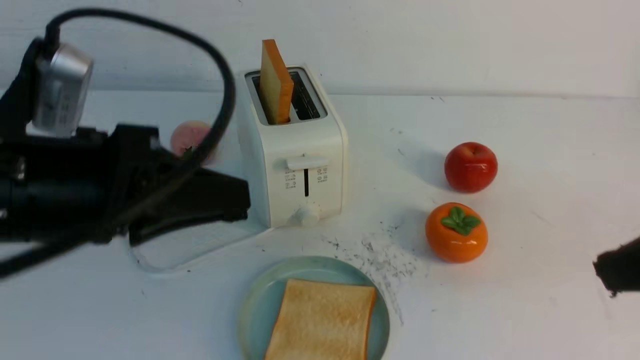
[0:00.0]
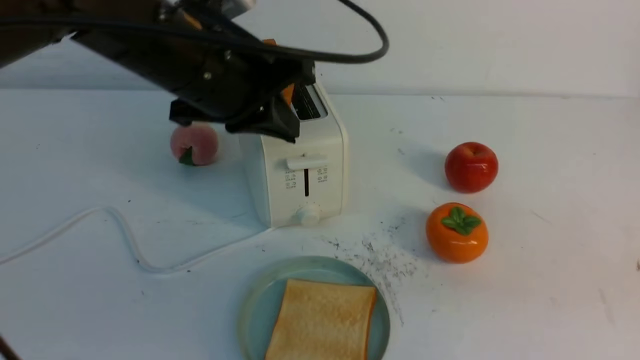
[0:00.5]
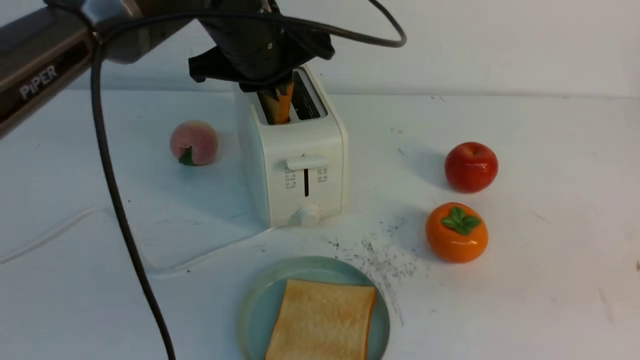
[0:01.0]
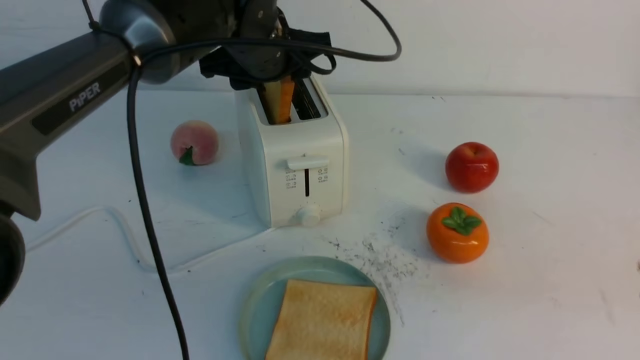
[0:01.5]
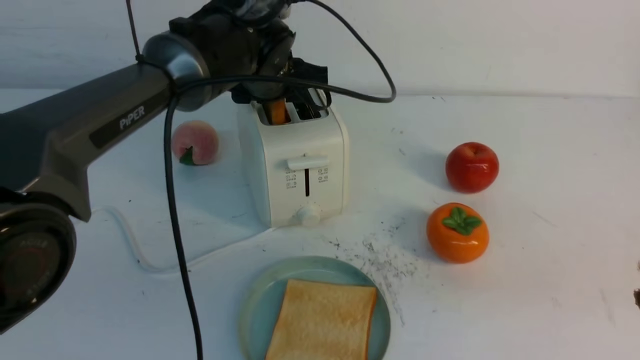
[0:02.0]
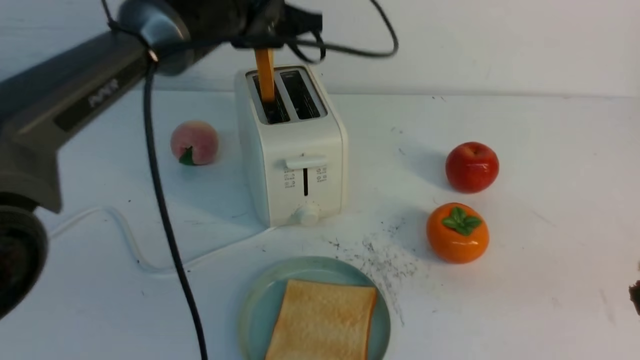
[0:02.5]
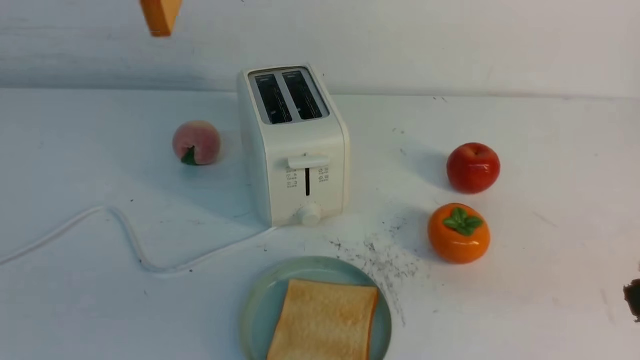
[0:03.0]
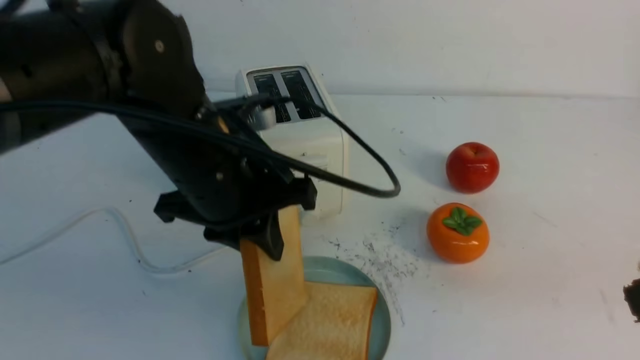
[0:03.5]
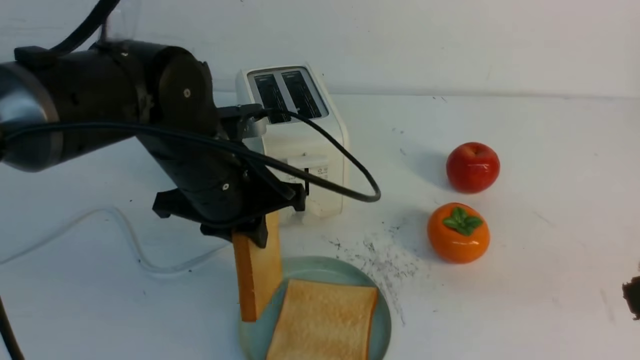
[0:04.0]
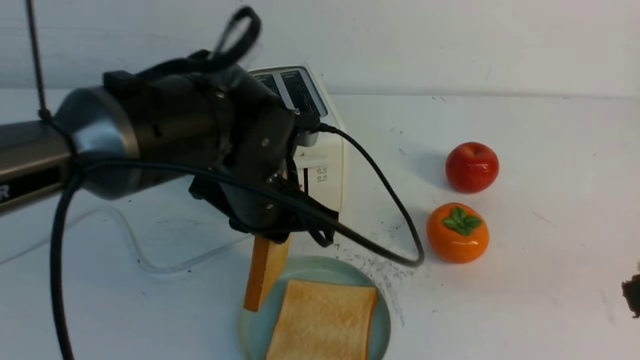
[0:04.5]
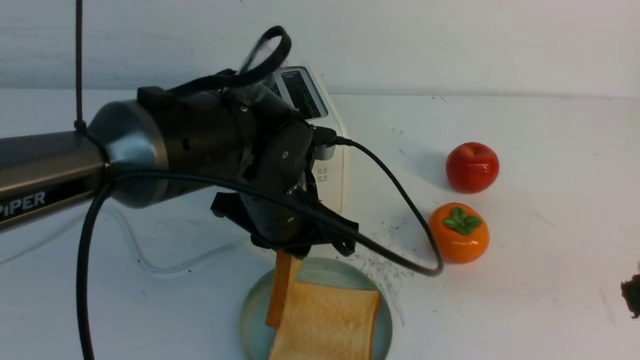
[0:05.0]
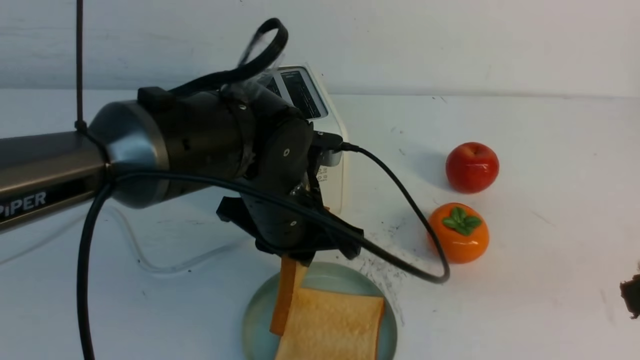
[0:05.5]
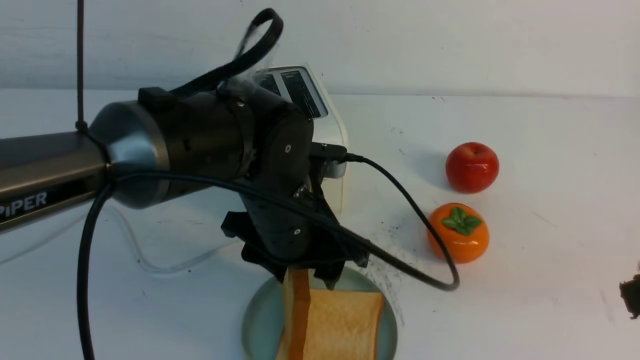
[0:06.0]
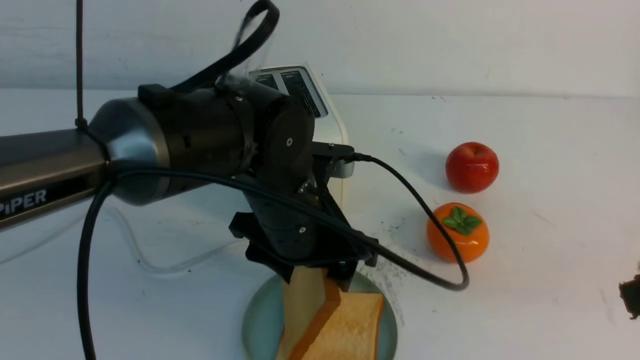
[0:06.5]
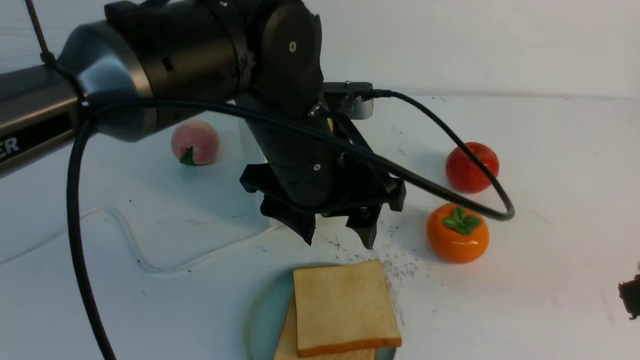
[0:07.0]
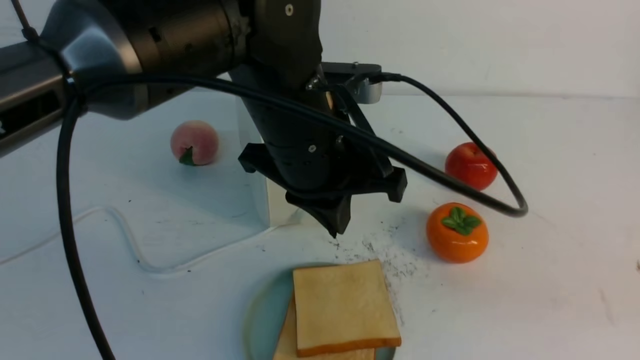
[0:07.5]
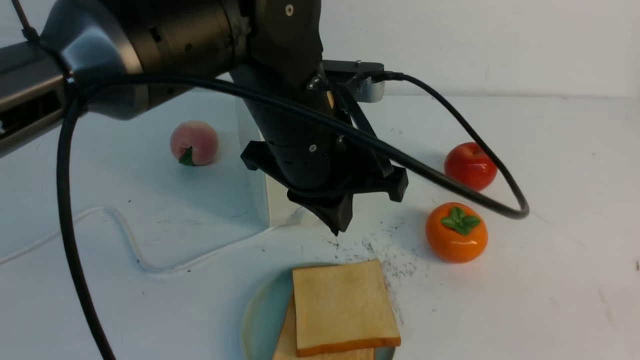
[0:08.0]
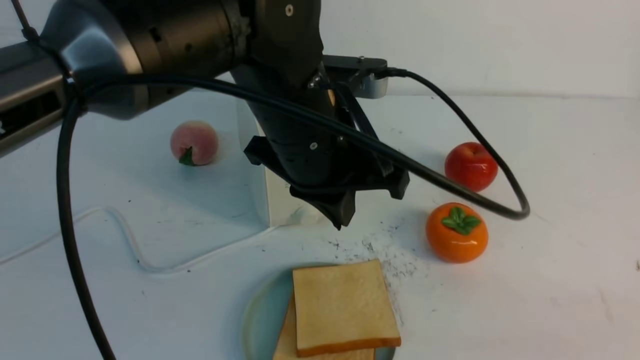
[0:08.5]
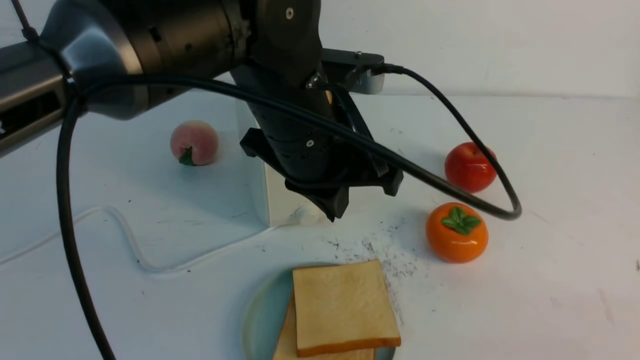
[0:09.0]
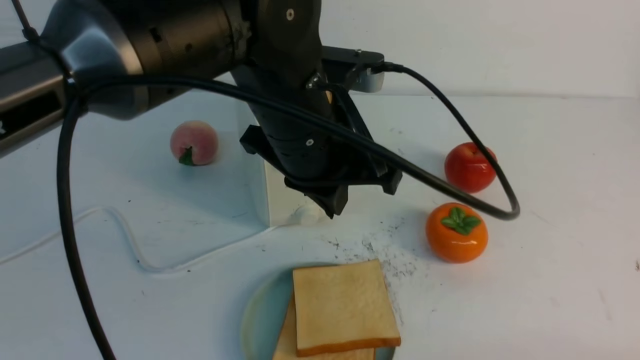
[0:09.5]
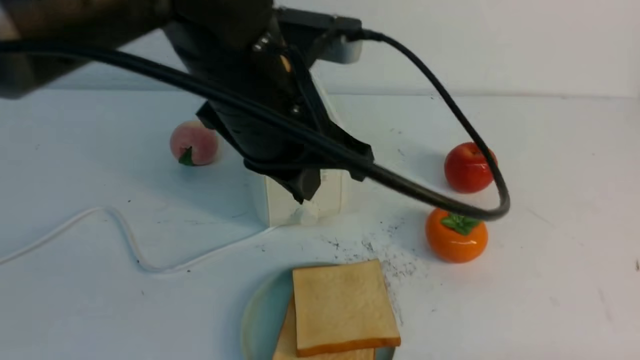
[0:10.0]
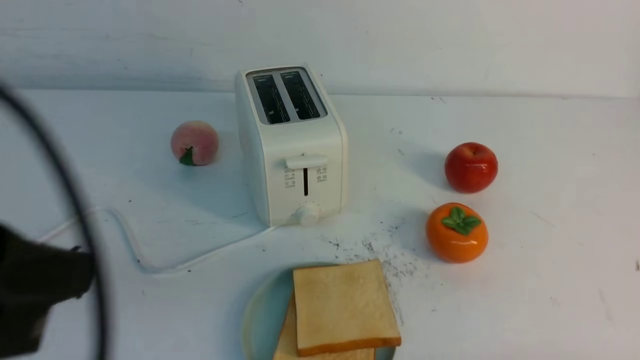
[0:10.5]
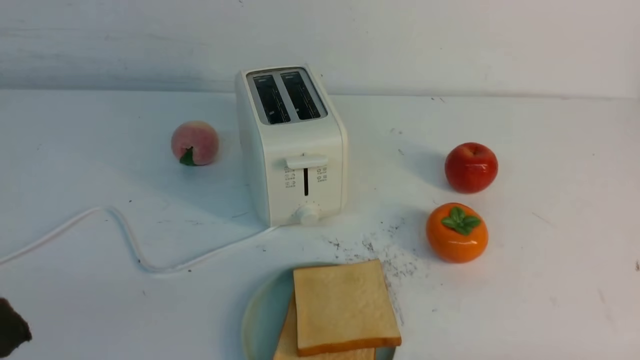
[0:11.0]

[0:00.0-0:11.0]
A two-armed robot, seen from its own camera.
Task of the whole recording: take toasted bread from bread machine on white table place on plate.
Step, 0:00.0 to 0:02.5: use the left arm to take out a slice of bread.
Step, 0:03.0 to 0:06.5: use the left arm to put a slice of bread into the empty plate.
0:00.0 to 0:02.0: The left gripper shifts roughly 30 cm forward and to the right, and opens its fingers.
0:02.0 to 0:03.5: The left gripper goes about 15 cm backward, moves roughly 20 cm upward and comes back, and closes.
0:03.5 to 0:05.5: The left gripper heads to the right and downward, covering some 10 cm.
0:05.5 to 0:07.5: The left gripper travels upward by some 10 cm, and opens, then closes once more.
0:07.5 to 0:09.0: The right gripper goes about 10 cm downward.
0:09.0 to 0:11.0: The left gripper heads backward and to the left, covering about 35 cm. Meanwhile the right gripper is displaced downward by some 10 cm.

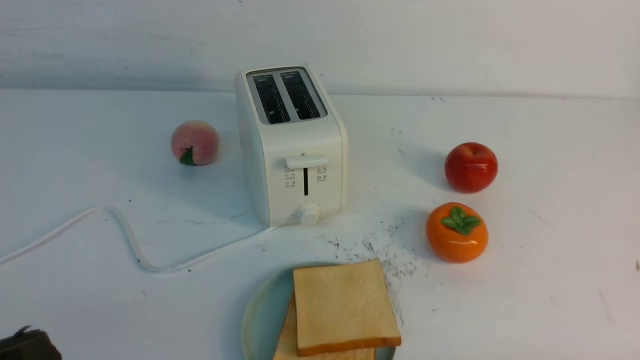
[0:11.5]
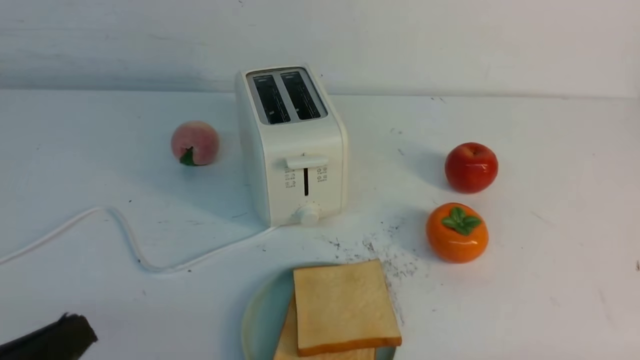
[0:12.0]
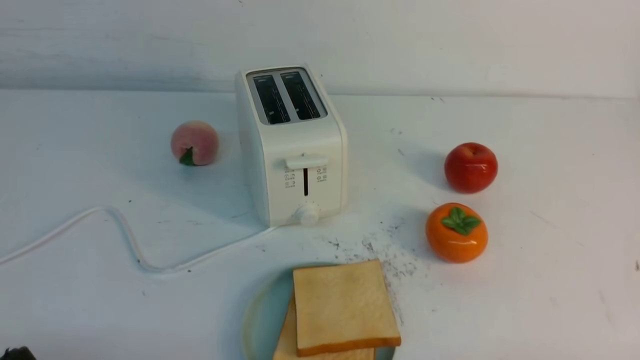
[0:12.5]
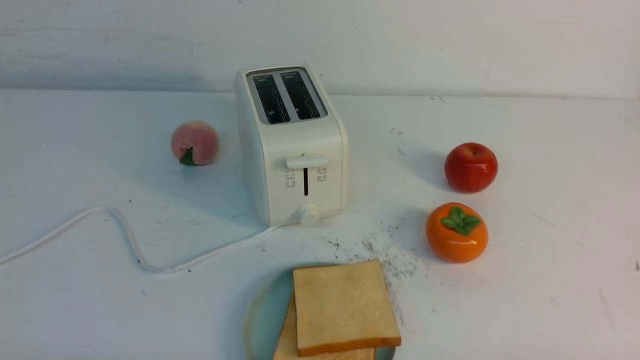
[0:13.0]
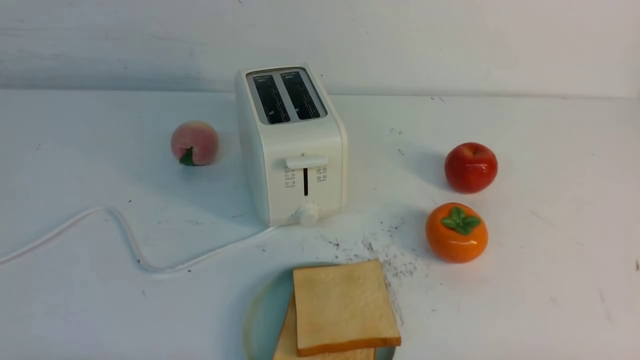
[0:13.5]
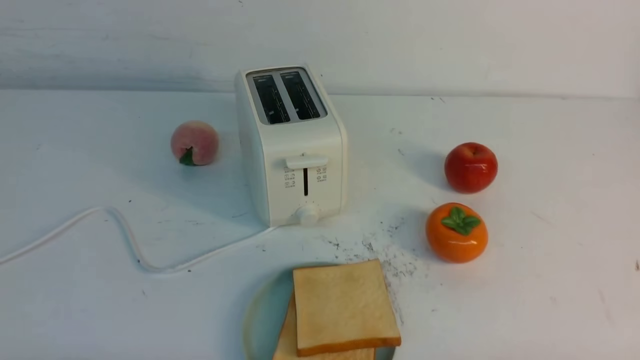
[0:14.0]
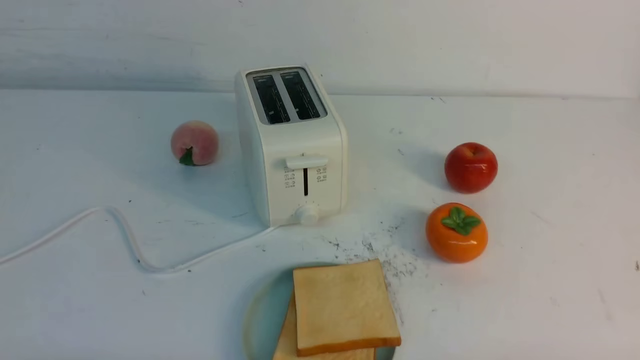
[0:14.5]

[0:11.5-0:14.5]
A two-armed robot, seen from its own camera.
Task of the whole recording: take toasted bread from bread machine on white table place on plate.
0:11.5 to 0:13.0: The left gripper moves downward, approximately 15 cm.
0:13.0 to 0:14.5: Both grippers stay about where they are.

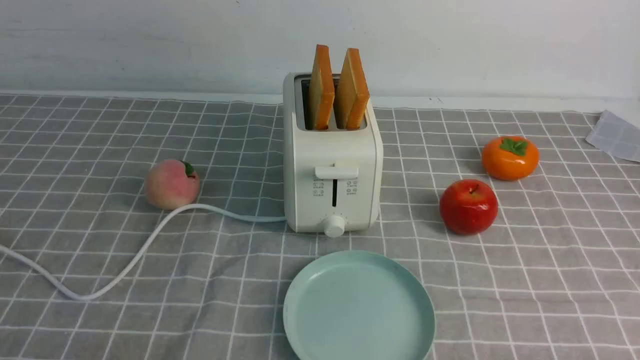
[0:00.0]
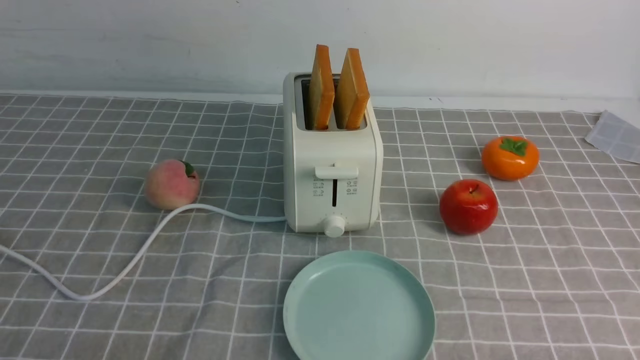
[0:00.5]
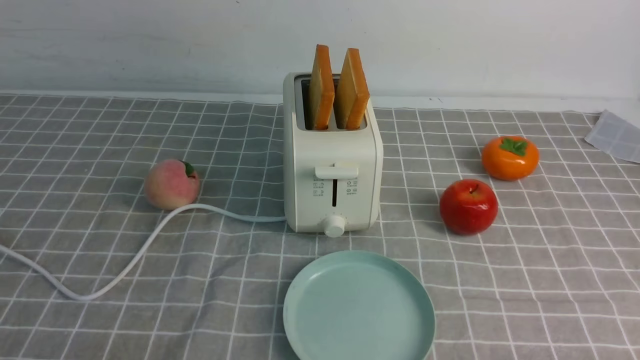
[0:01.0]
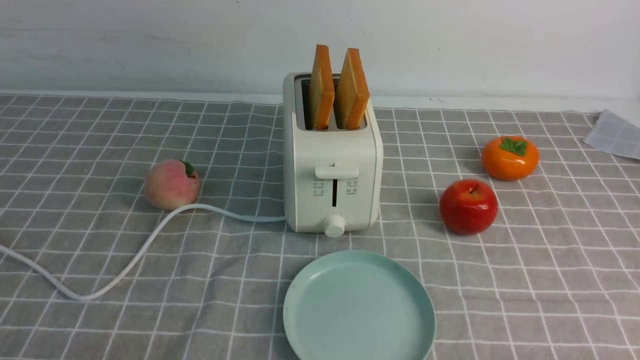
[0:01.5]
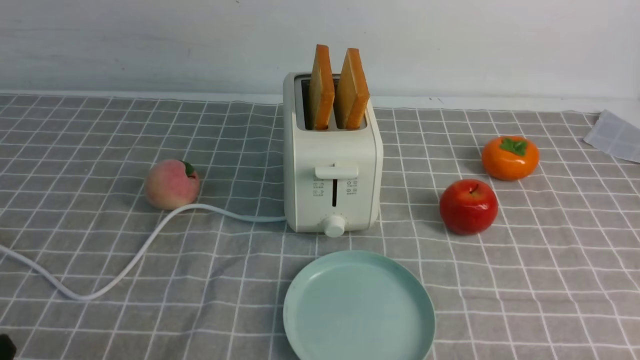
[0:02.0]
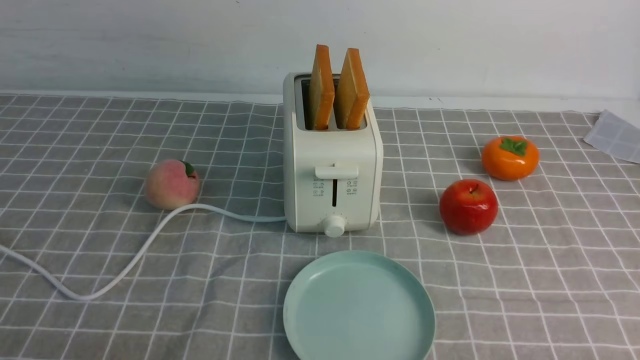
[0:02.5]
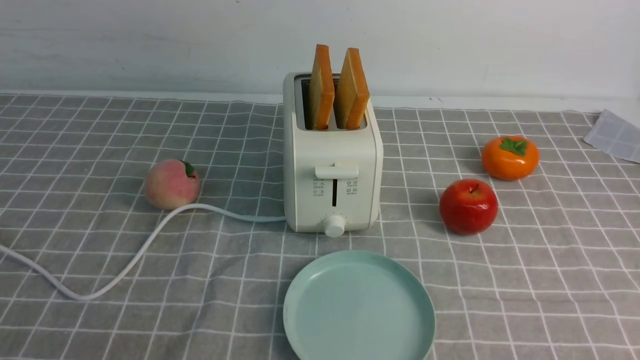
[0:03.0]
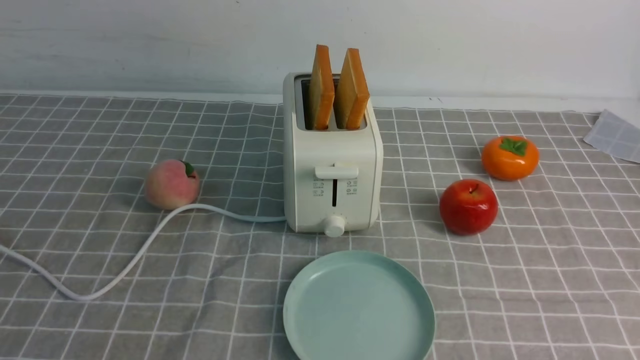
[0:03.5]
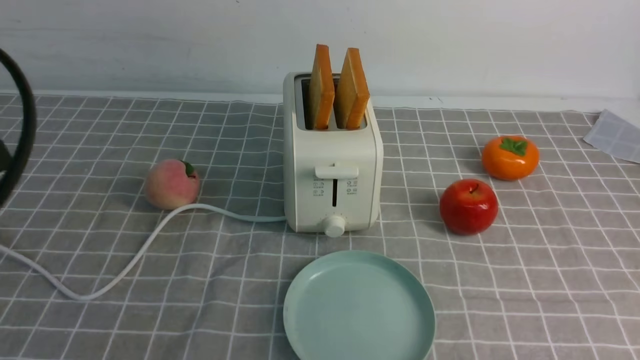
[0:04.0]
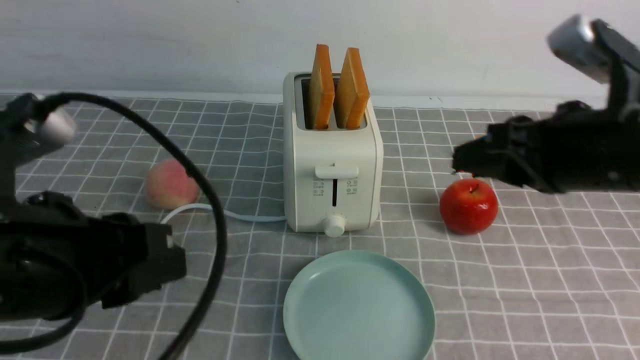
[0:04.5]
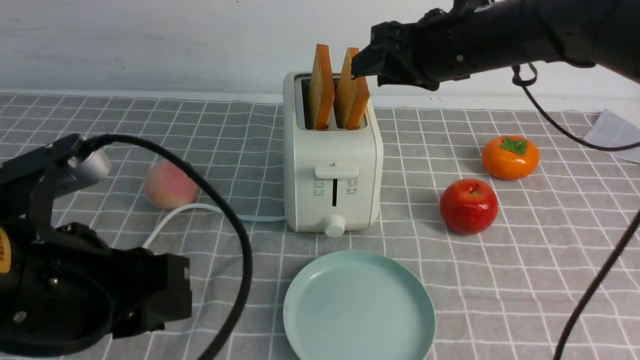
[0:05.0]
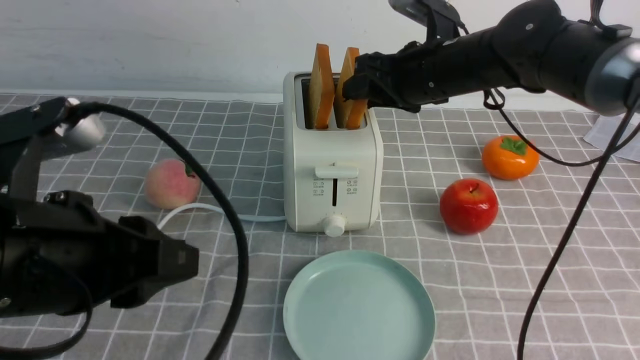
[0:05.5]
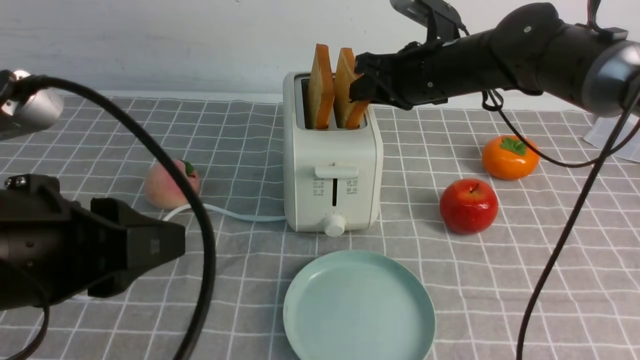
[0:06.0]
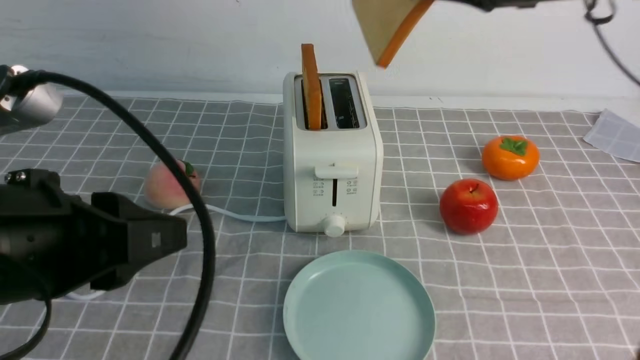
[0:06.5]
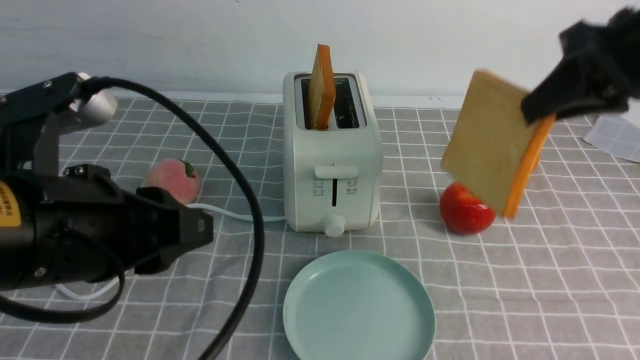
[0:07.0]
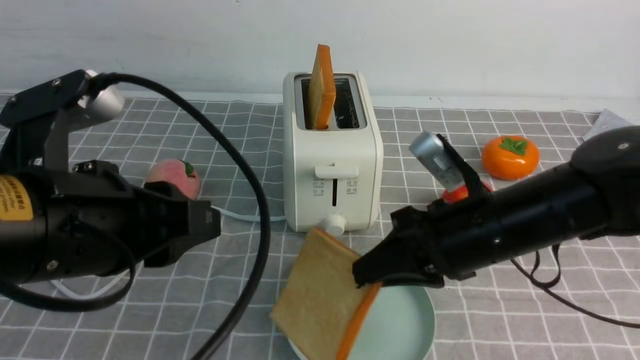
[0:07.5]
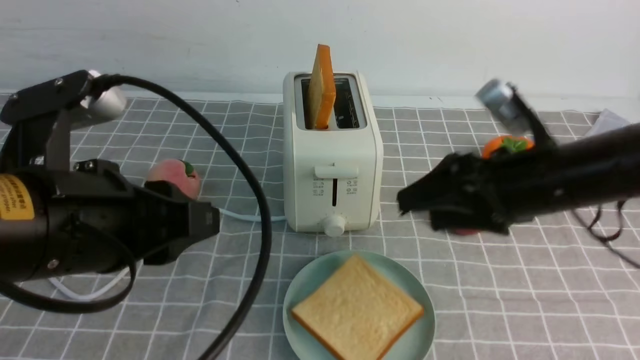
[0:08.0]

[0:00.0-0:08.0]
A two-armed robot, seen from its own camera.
Task of the whole recording: take toasted bread from bread machine on grey coffee table place on plate.
Step, 0:00.0 to 0:06.0: use the right arm to take out a slice of bread.
0:02.0 to 0:04.0: The left gripper is displaced upward and forward by about 20 cm.
0:04.0 to 0:06.0: The left gripper shifts about 5 cm to the right. Meanwhile the right gripper shifts roughly 35 cm forward and to the left.
0:06.0 to 0:08.0: The right gripper goes up and down, approximately 15 cm each way, reversing 2 times, and opens its fingers.
